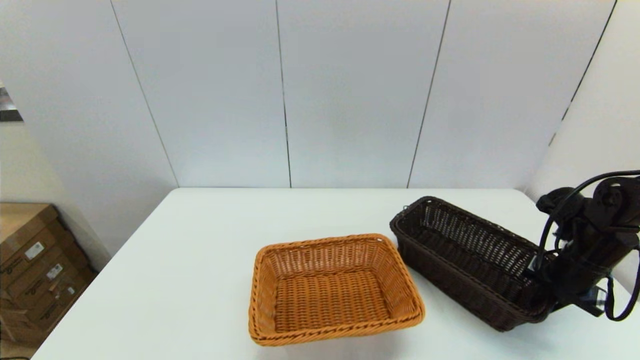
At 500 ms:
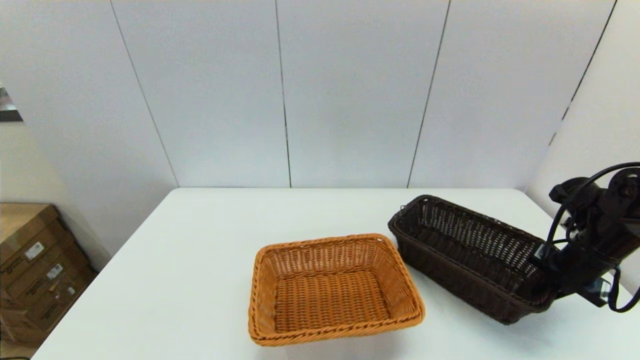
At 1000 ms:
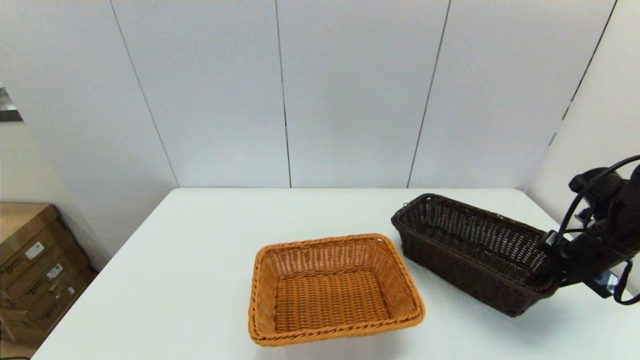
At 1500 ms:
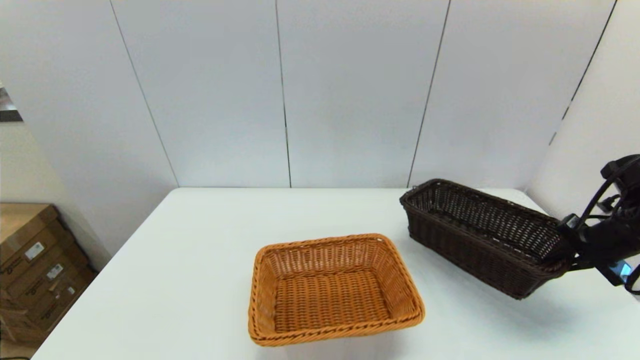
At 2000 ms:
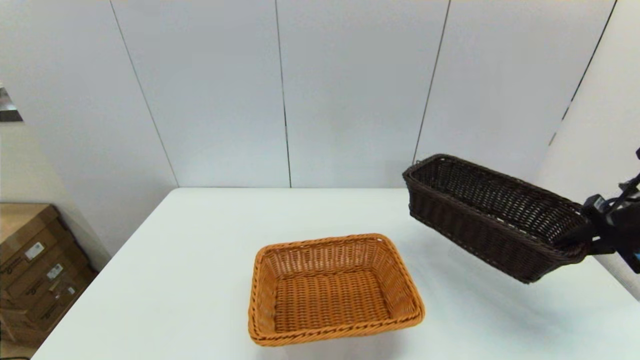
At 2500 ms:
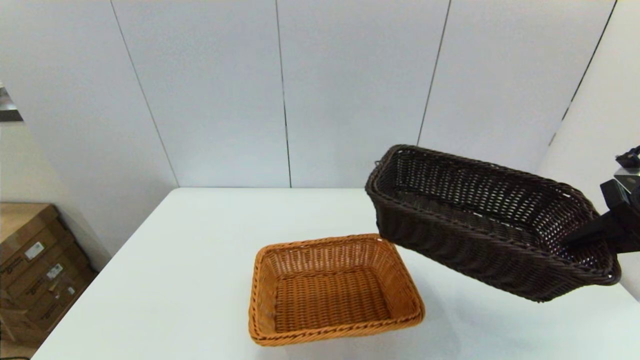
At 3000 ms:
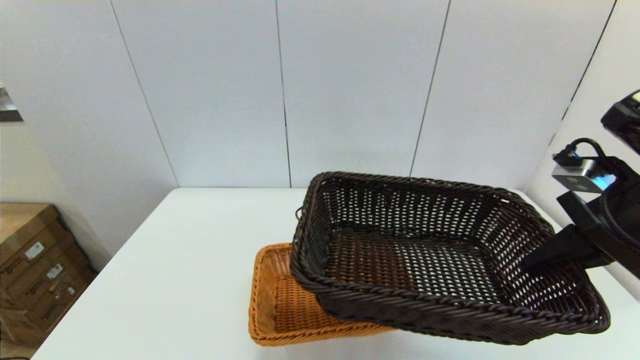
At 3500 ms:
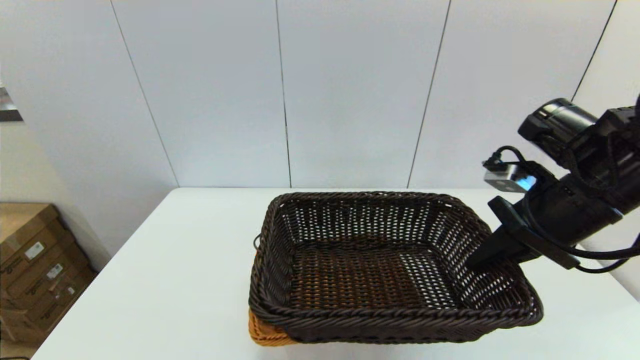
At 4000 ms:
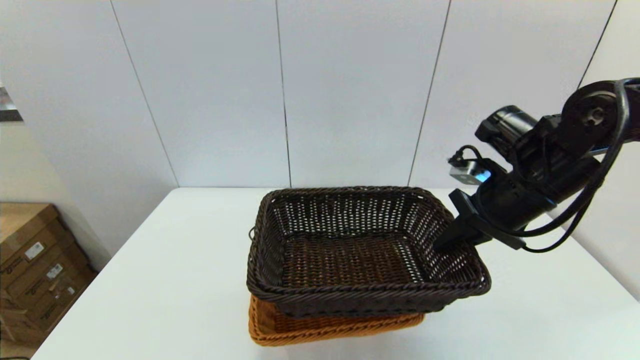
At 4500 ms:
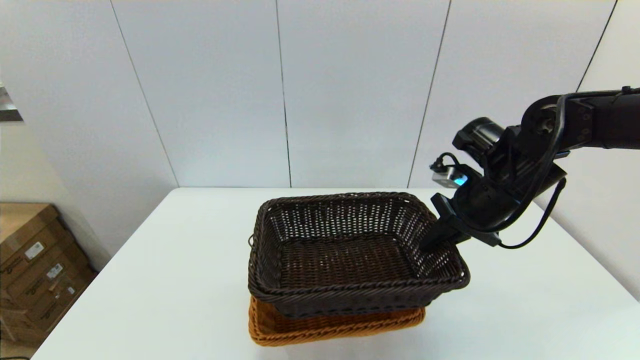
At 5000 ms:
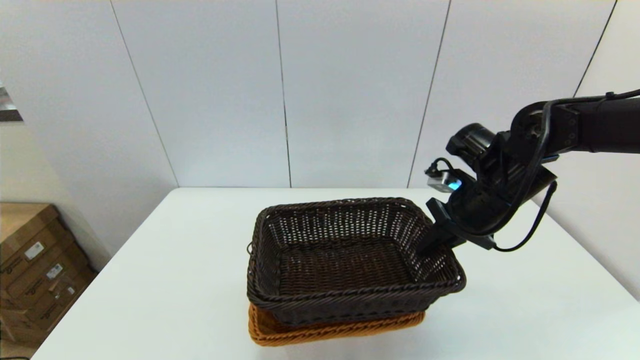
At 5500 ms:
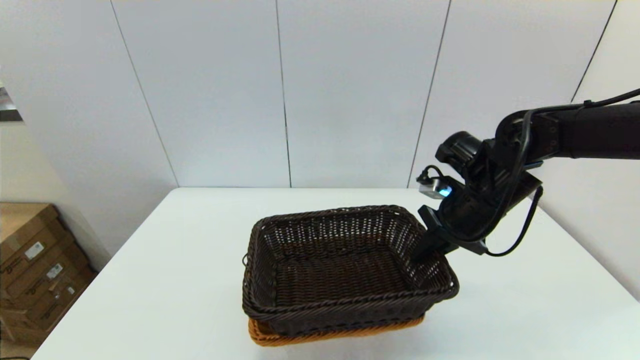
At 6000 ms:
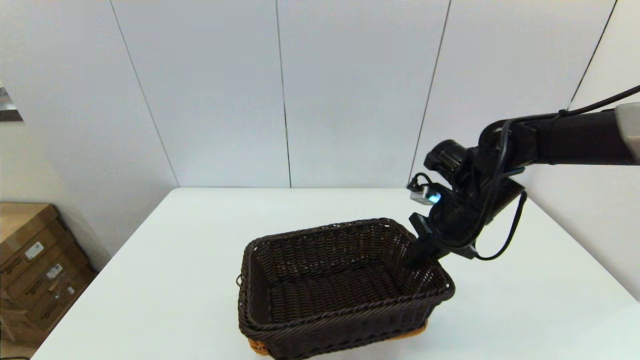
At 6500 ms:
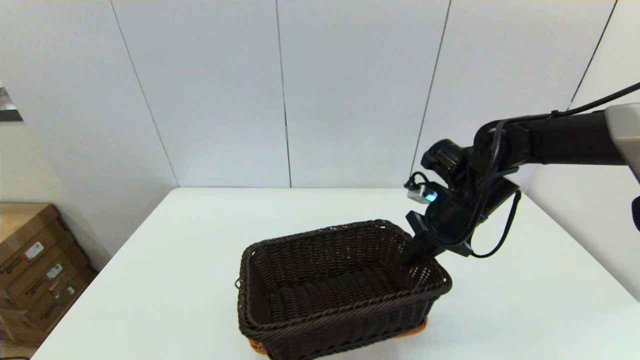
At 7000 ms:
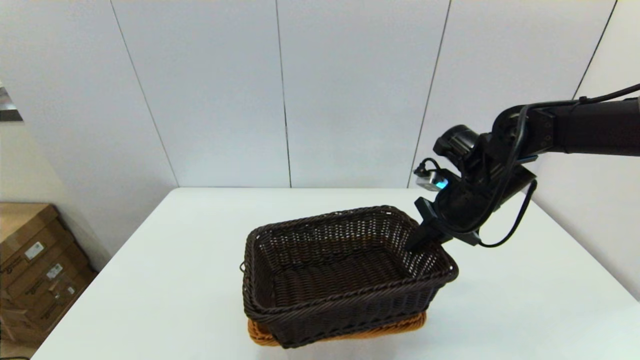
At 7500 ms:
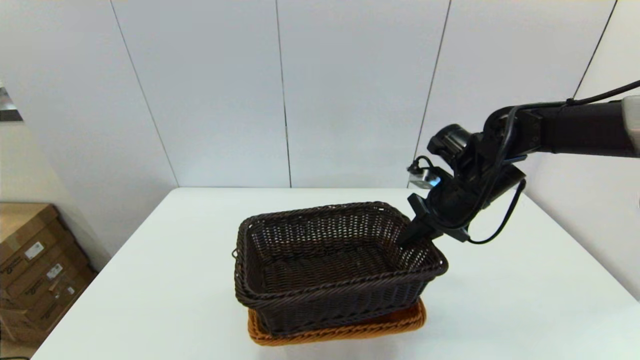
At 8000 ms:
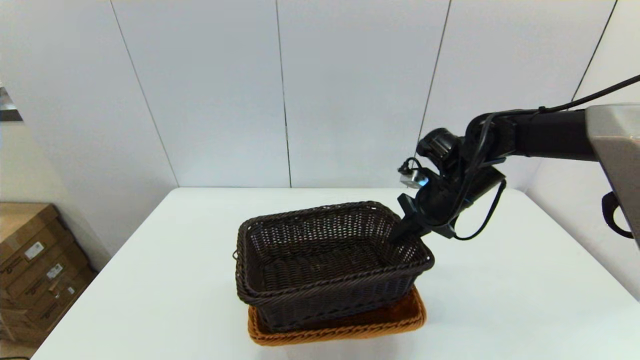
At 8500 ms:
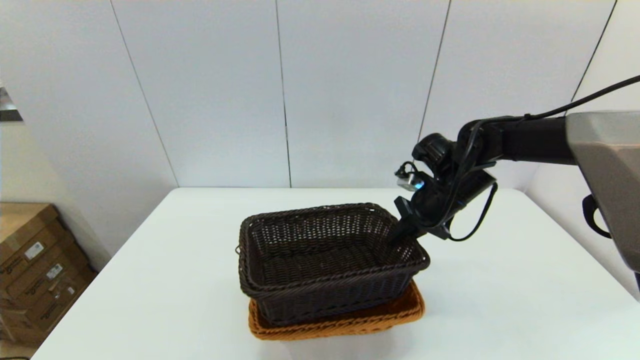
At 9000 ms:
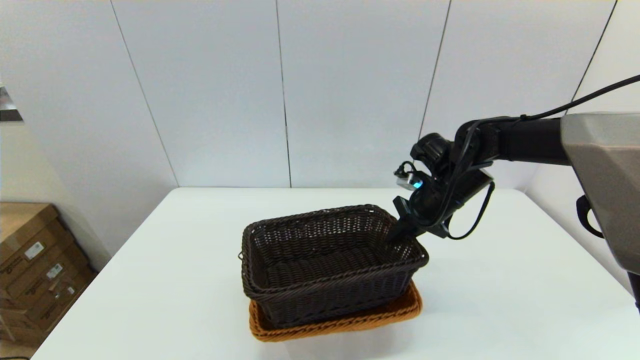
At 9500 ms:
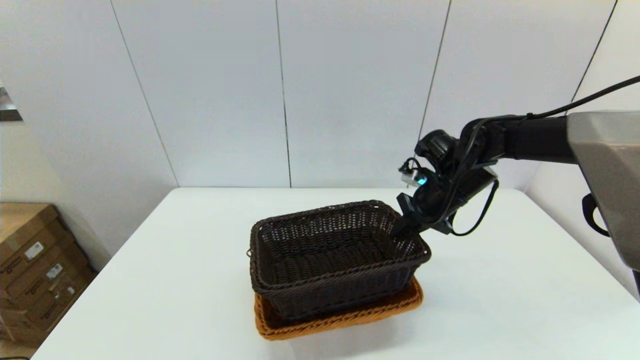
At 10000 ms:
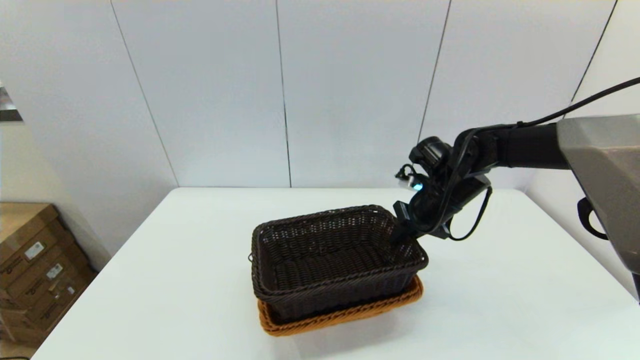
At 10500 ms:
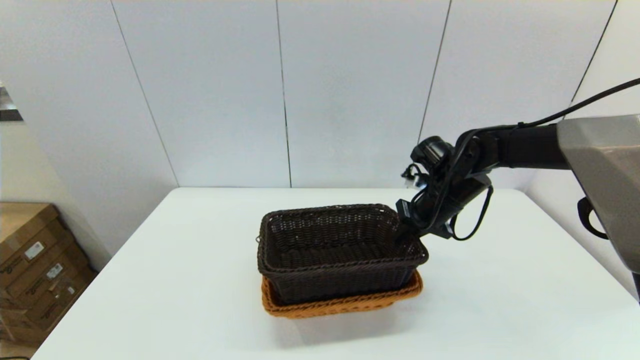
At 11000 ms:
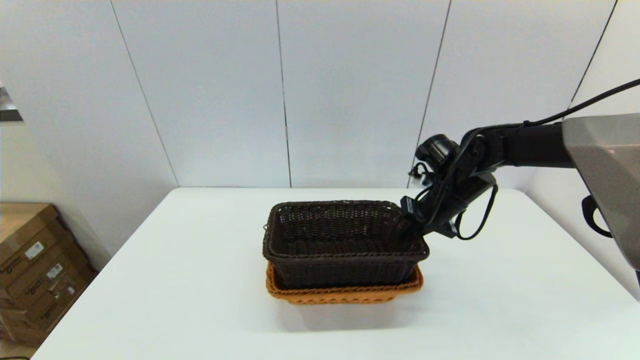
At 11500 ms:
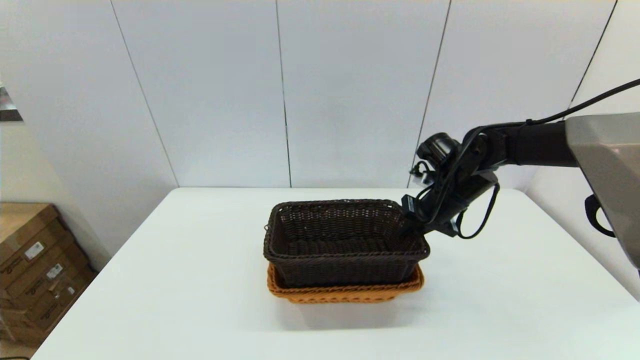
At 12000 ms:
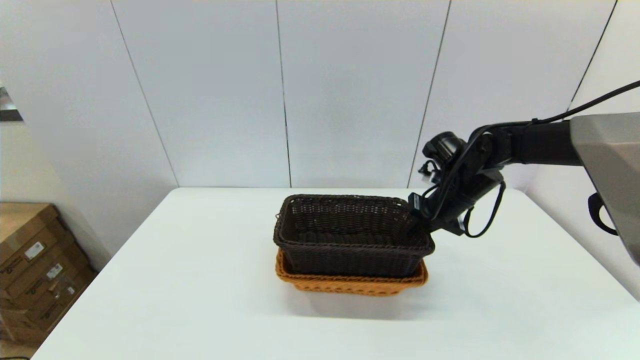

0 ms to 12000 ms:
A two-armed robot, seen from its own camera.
Task of the whole recording: stack a basket on top of another basket.
0 ms to 2000 ms: The right gripper goes roughly 10 cm upward.
2000 ms to 4000 ms: The right gripper goes some 20 cm to the left.
4000 ms to 6000 ms: The right gripper travels downward by some 5 cm.
6000 ms to 10000 ms: The grippers make only small movements.
10000 ms to 12000 ms: There are only small adjustments of the grippers.

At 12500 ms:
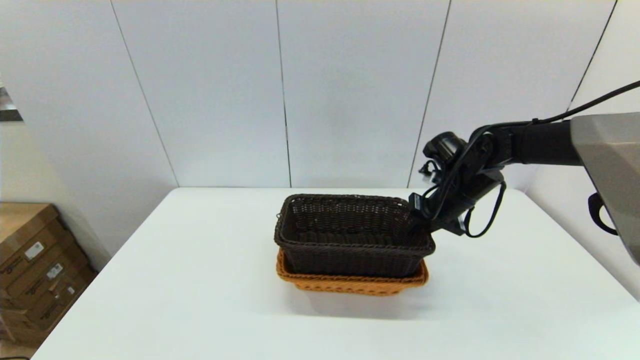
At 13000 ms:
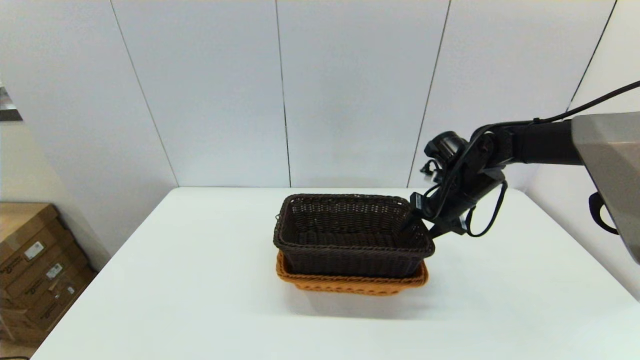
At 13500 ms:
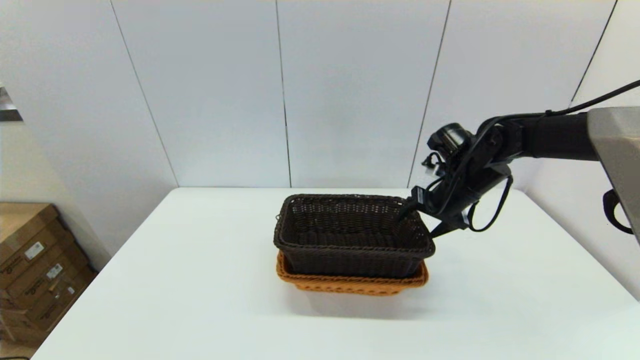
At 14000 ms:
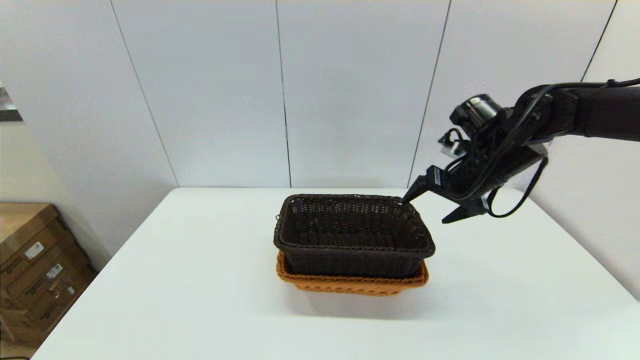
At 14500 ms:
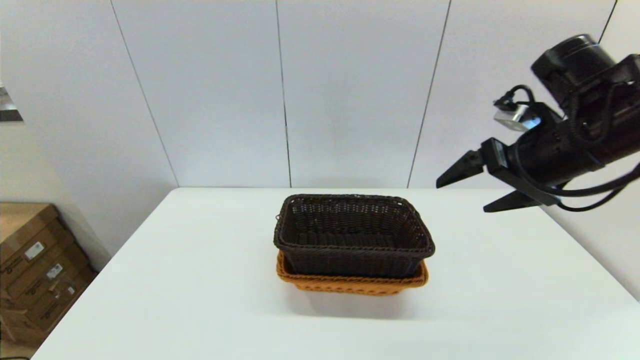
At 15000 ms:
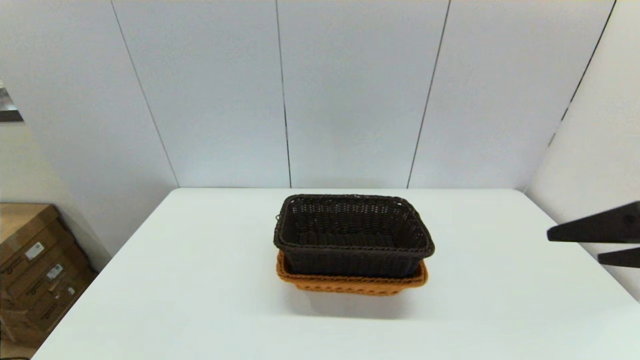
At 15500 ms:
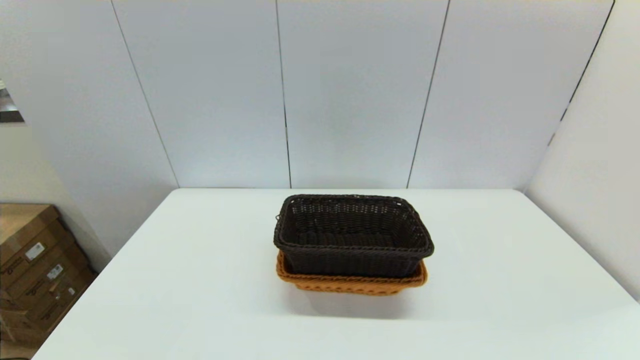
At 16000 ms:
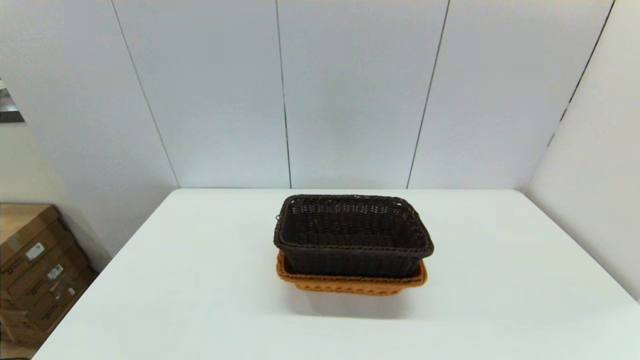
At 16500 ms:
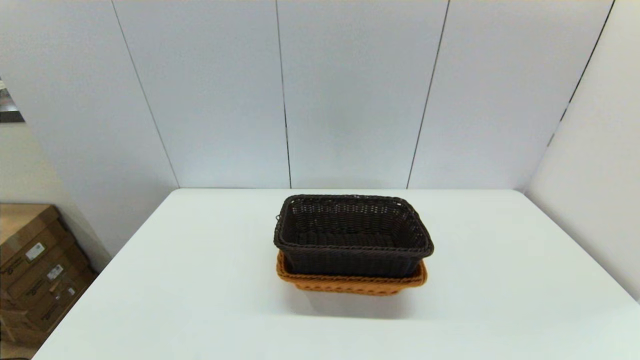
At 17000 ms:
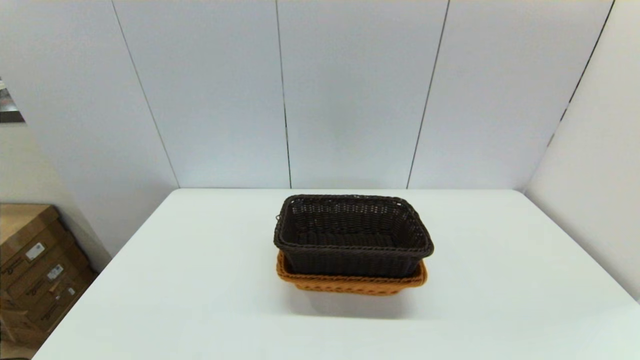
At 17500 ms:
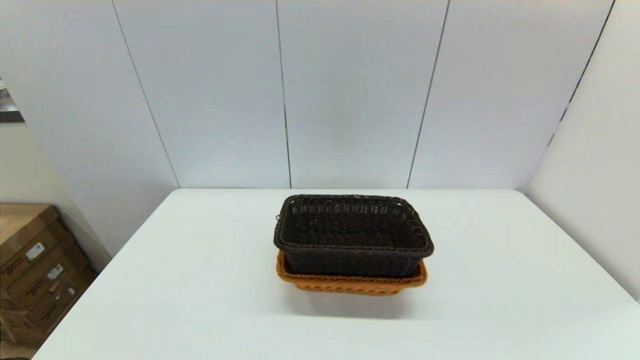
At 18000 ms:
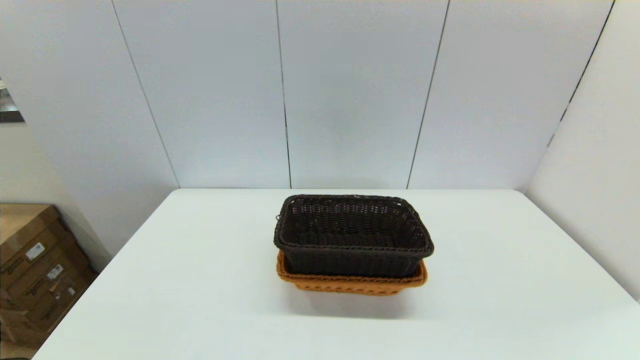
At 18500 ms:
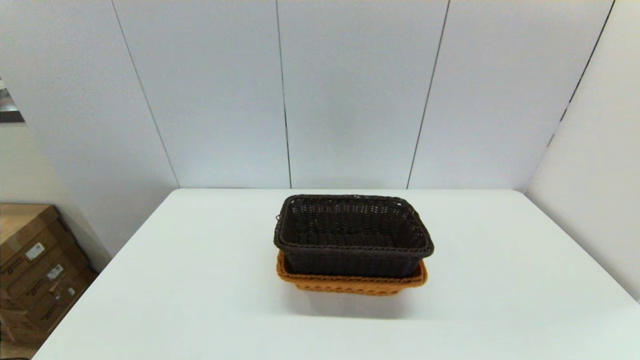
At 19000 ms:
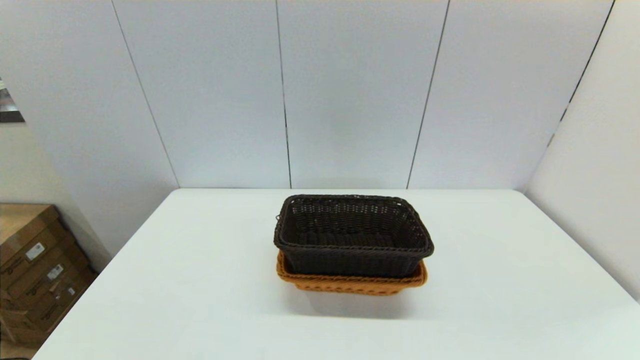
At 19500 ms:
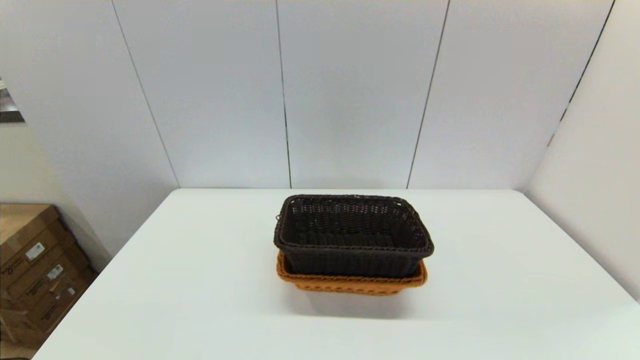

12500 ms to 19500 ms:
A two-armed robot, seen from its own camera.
Task of the whole recording: stack a basket on top of another basket.
12500 ms to 14500 ms: The right gripper heads upward and backward, covering some 20 cm, and opens its fingers.
14500 ms to 16000 ms: The right gripper is displaced backward by some 30 cm.

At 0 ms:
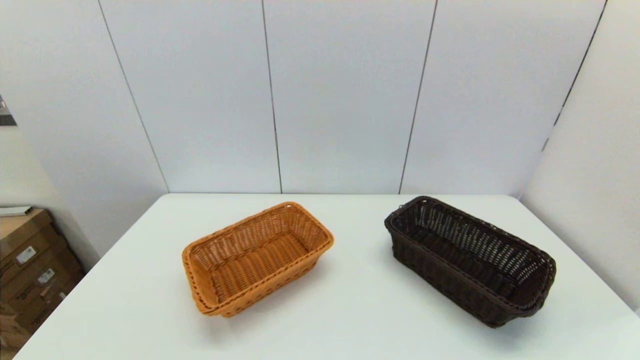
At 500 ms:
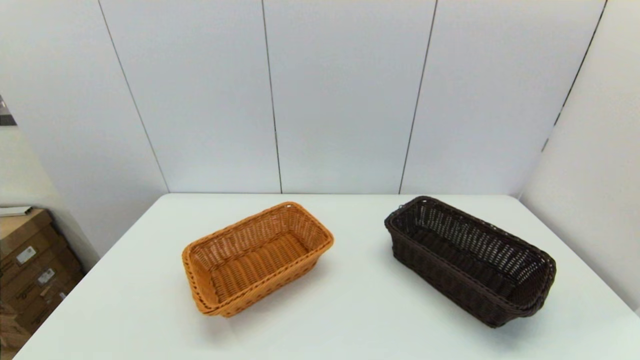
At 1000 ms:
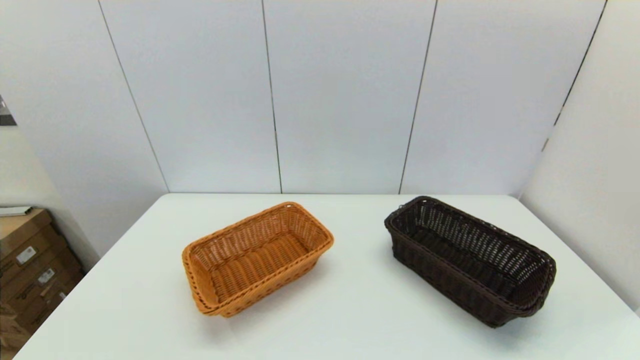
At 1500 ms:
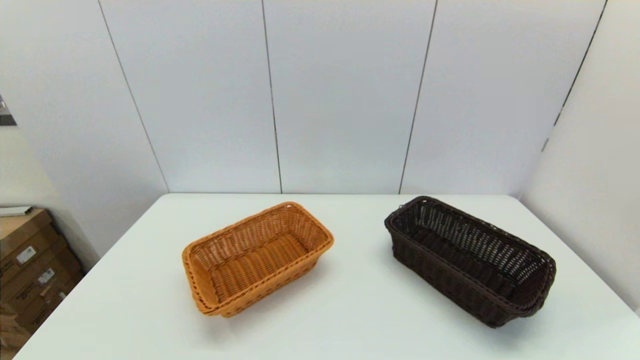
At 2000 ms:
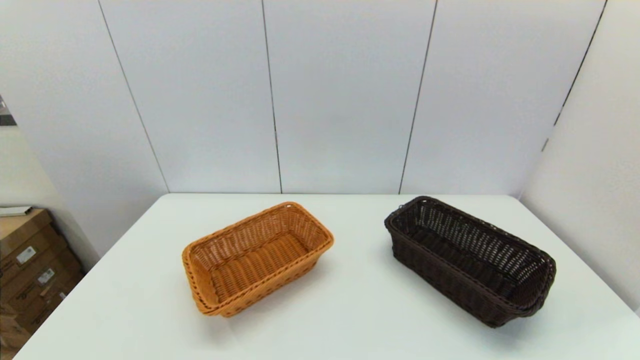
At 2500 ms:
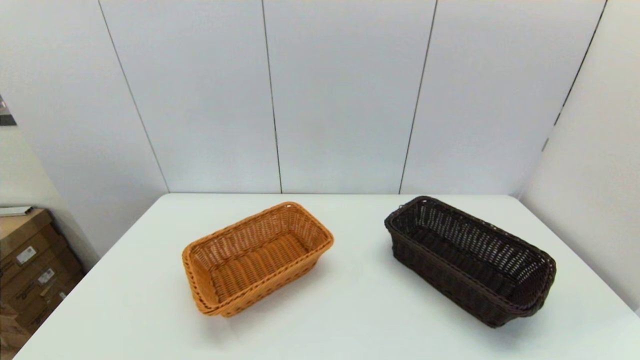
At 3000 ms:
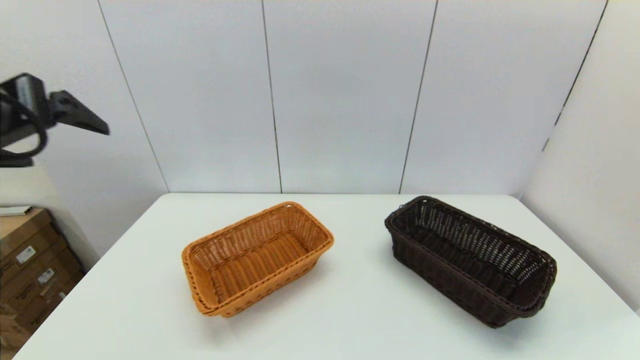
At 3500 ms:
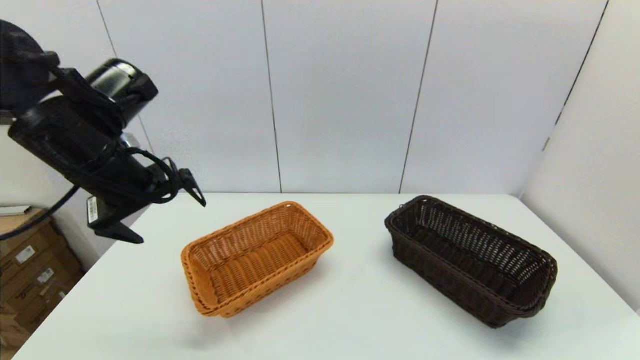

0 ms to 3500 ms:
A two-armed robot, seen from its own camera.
Task of the whole recording: stack a basket on top of another basket.
2000 ms to 3500 ms: The left gripper moves forward, approximately 30 cm.
